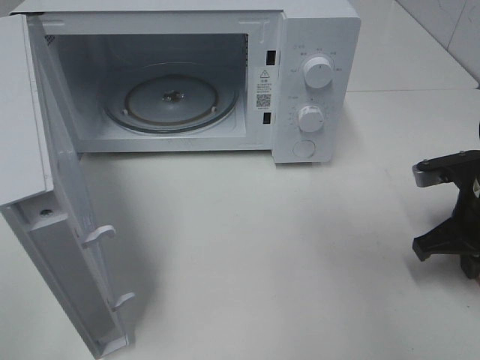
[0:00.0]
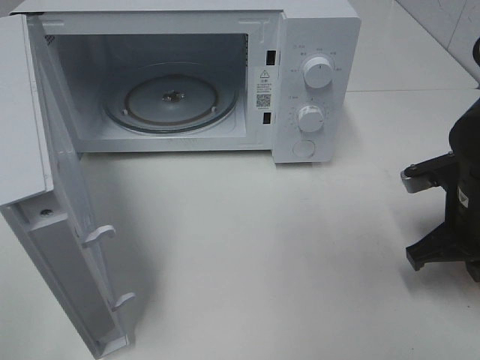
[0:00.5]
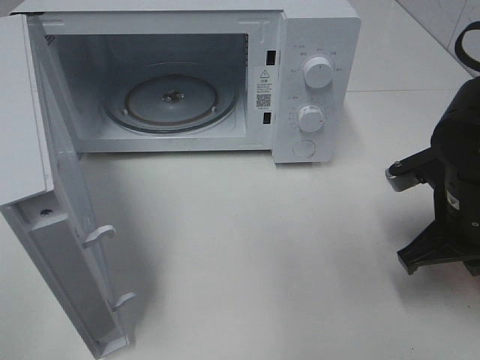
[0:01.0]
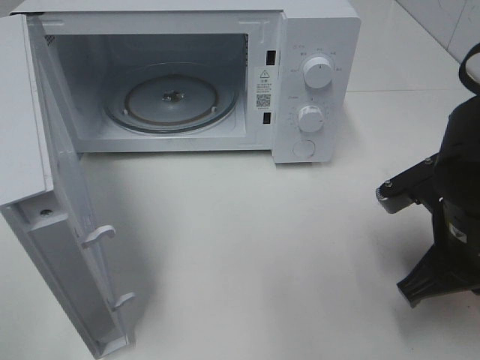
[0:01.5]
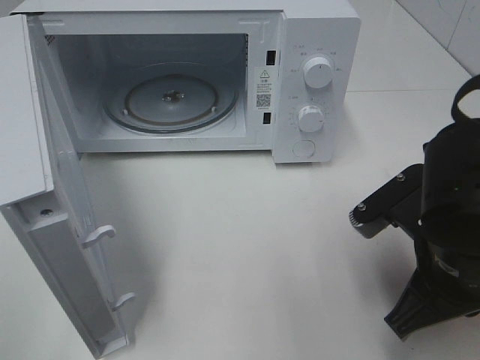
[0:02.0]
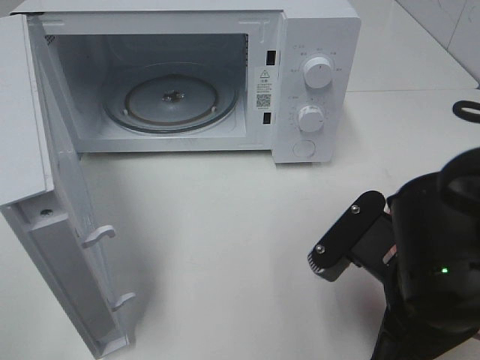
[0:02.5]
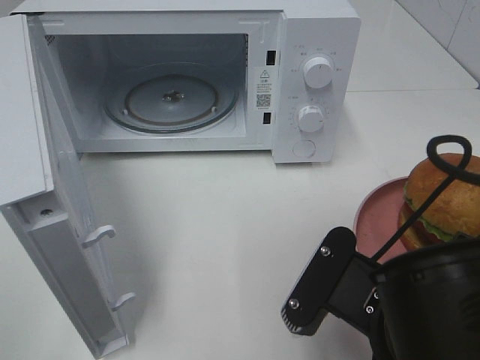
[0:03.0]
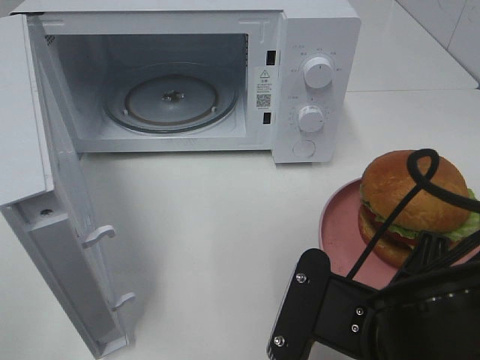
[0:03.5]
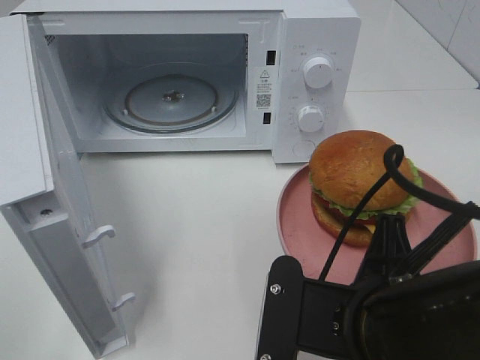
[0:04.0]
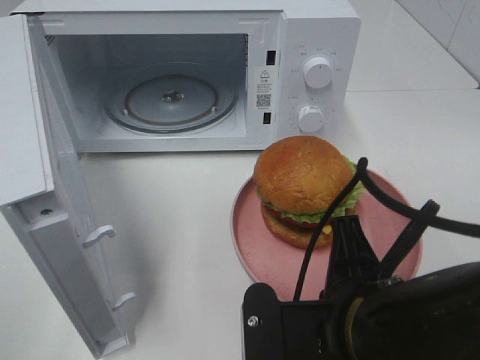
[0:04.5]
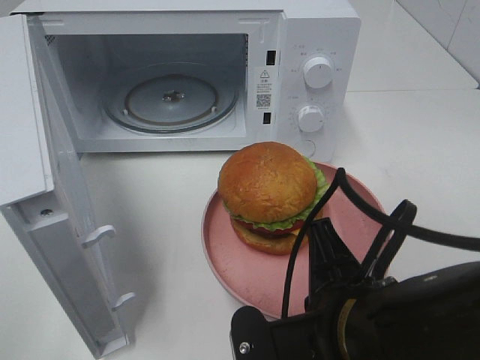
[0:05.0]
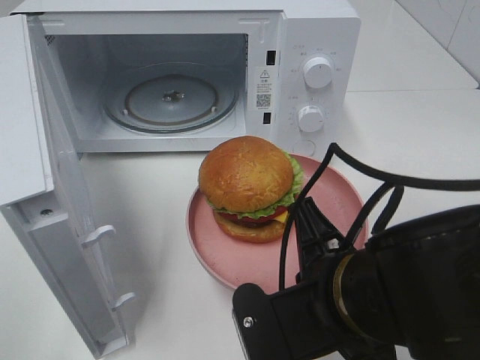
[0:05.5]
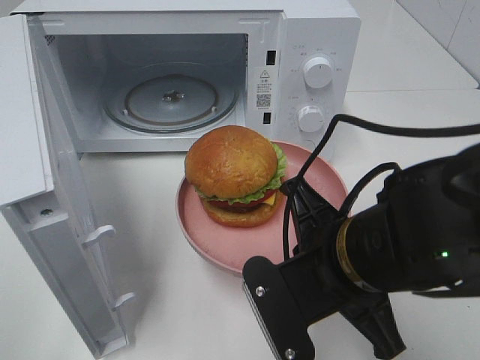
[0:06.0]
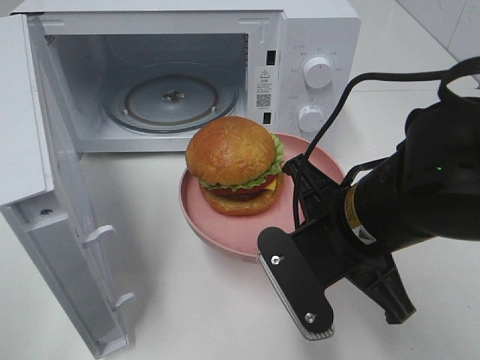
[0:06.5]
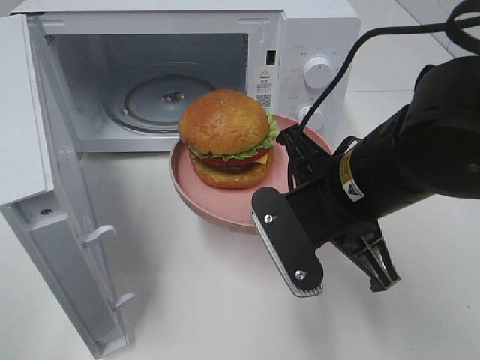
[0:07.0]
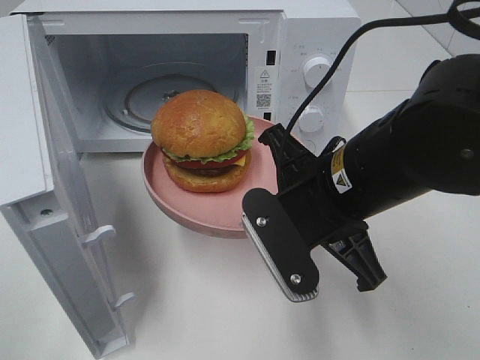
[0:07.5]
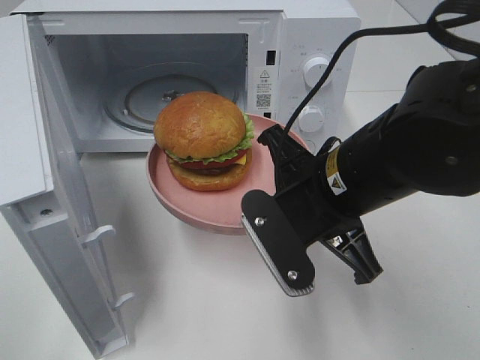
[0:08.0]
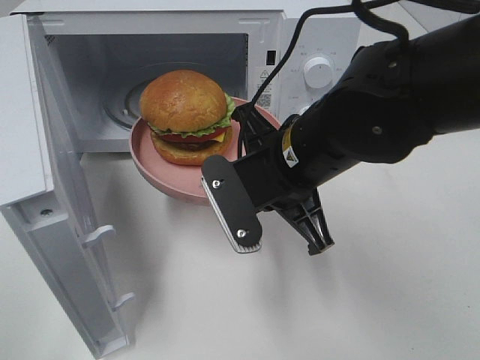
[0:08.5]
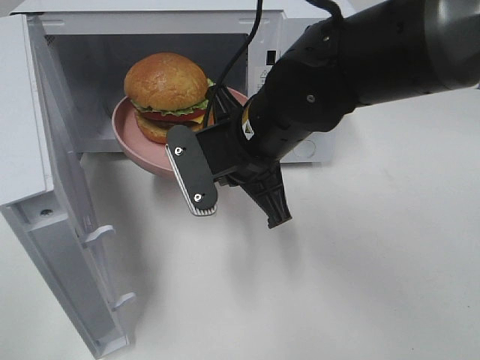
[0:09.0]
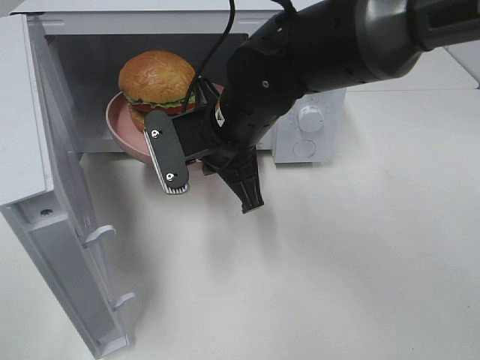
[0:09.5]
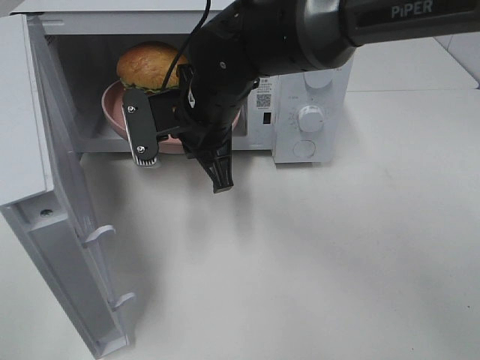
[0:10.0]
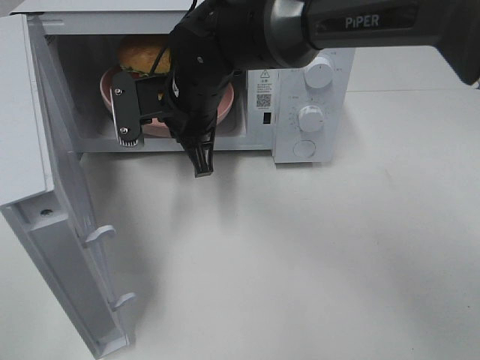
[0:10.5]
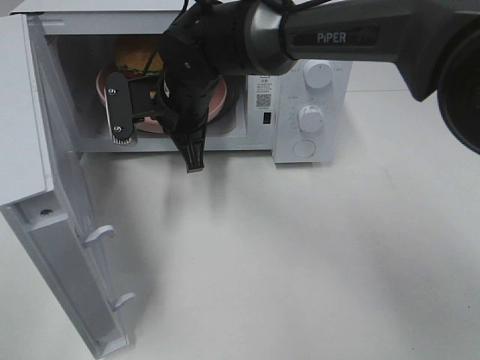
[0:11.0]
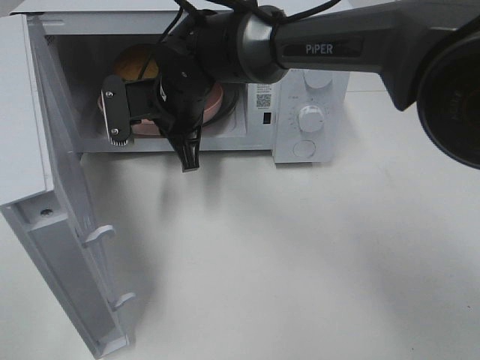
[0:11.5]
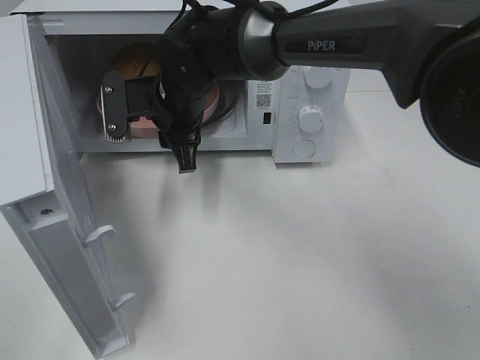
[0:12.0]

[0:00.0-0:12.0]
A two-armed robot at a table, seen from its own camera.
Task of the whole recording: Heat the burger.
Step, 0.5 to 11.5 s: Right hand: place the plate in the microwave.
0.0 to 2.0 s: The right gripper shifts some 15 cm to the left and backward.
2.0 to 4.0 s: The right gripper travels to the left and backward by some 10 cm.
4.0 to 6.0 s: The right gripper goes about 5 cm forward.
6.0 to 8.0 s: The right gripper shifts roughly 5 cm forward.
8.0 to 10.0 s: The right gripper heads forward and to the left, covering roughly 15 cm.
10.0 to 12.0 s: The right gripper shifts by some 5 cm, and opens up.

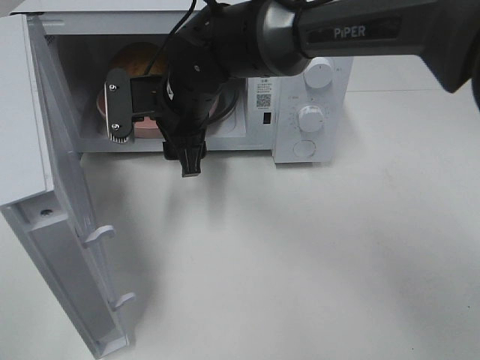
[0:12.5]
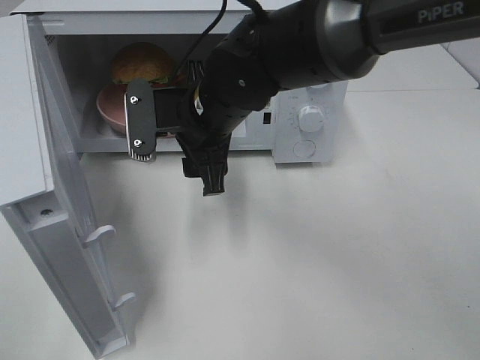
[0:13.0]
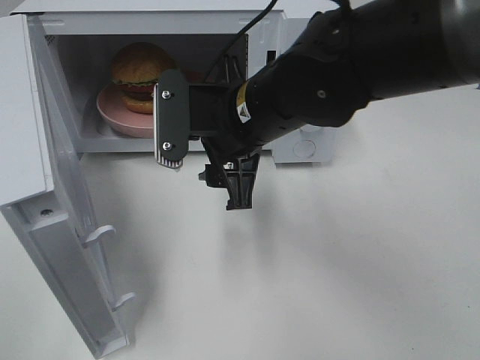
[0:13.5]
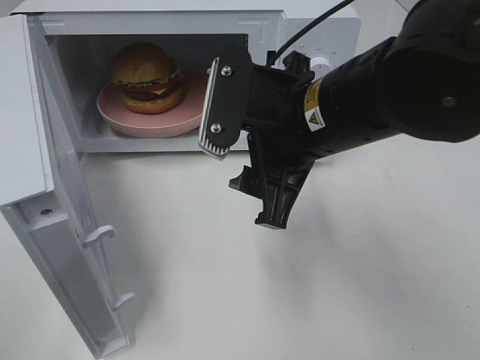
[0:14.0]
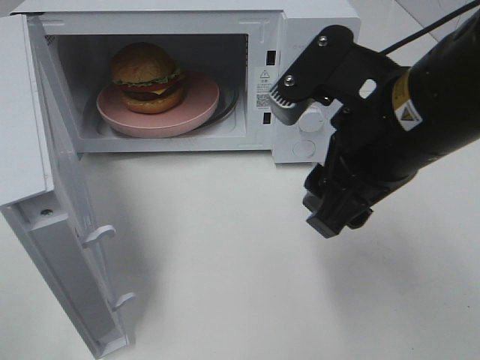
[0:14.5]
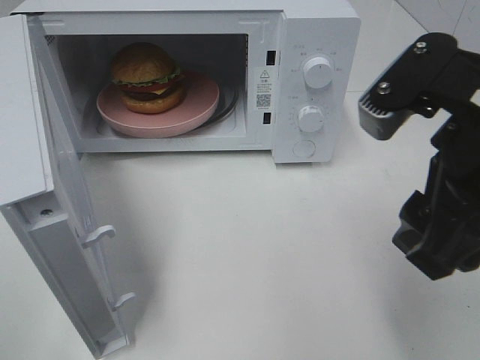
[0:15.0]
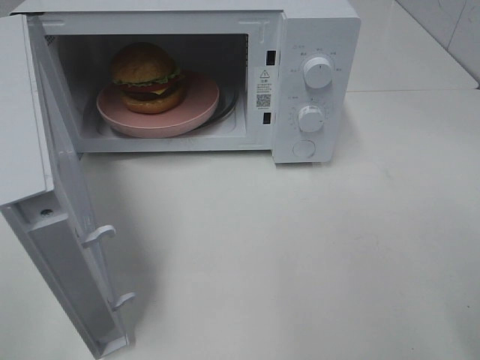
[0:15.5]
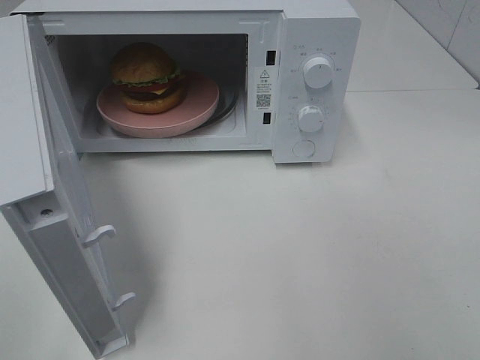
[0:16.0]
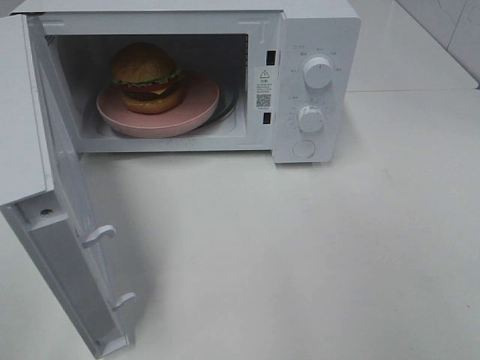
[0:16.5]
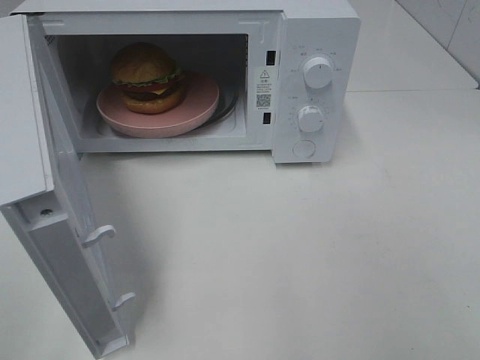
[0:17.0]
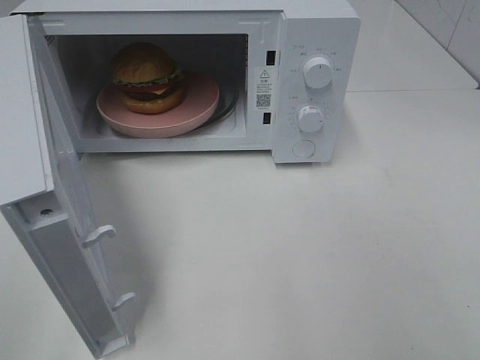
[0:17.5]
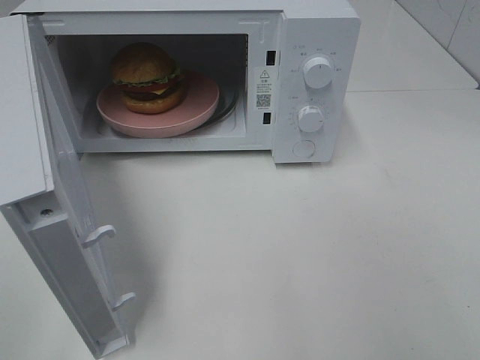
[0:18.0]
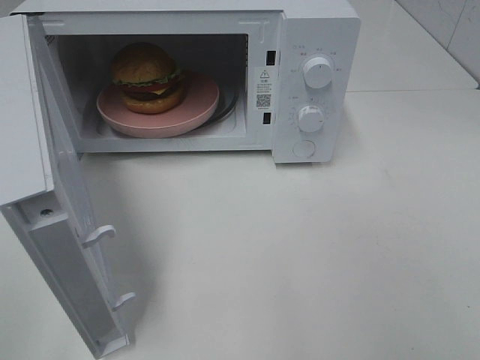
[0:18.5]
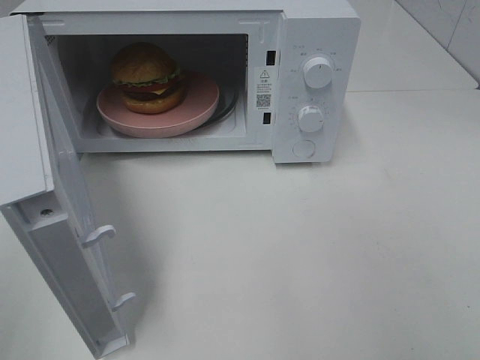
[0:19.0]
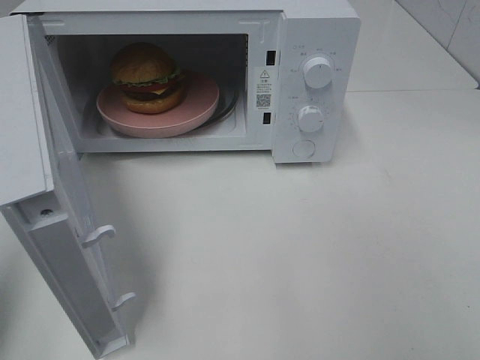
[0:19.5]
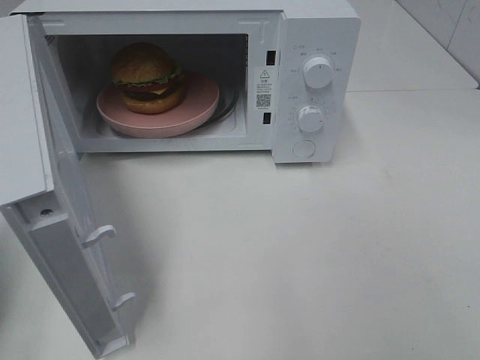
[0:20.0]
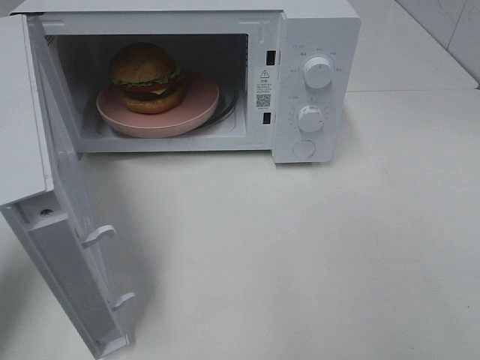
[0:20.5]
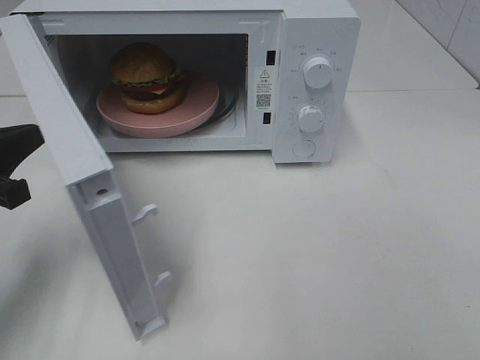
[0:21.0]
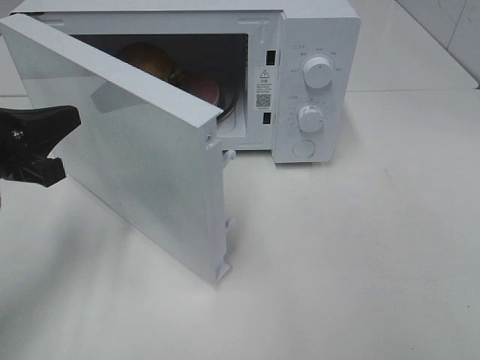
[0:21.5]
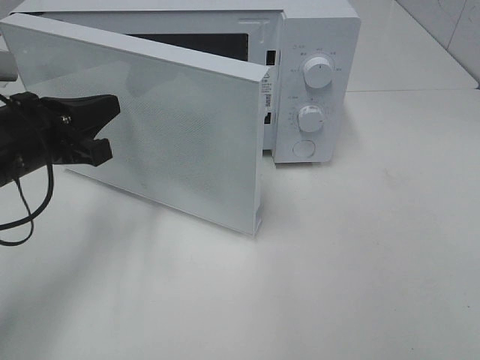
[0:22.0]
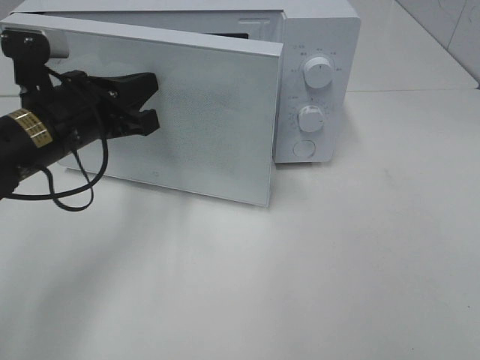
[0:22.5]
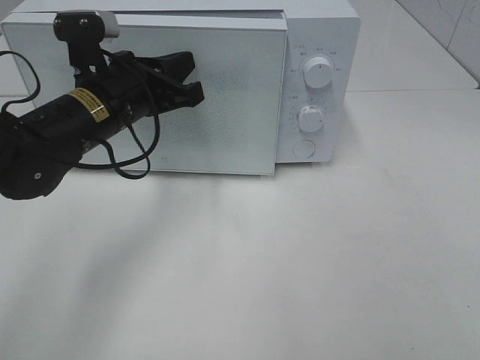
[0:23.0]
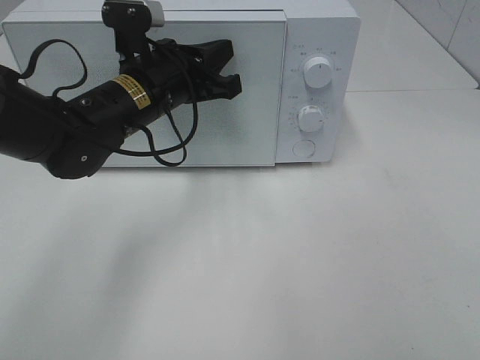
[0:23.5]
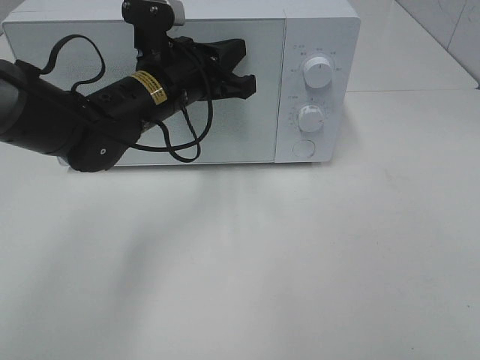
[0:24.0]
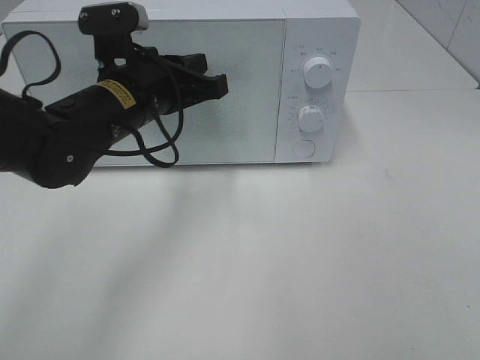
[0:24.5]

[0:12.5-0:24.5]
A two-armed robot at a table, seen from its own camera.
Task of the whole recording: Heat the burger.
Step, 12.5 to 24.5 s: Left hand: close the microwave door.
12.5 to 14.5 s: The right gripper shifts roughly 25 cm to the right, backward and upward.
14.5 to 16.5 s: The right gripper travels backward and to the right by some 25 cm.
18.5 to 20.5 s: The left gripper moves forward and downward, about 20 cm, and closes.
20.5 to 22.5 s: The left gripper heads to the right and forward, covering about 15 cm.
22.5 to 24.5 s: The left gripper travels to the right by approximately 5 cm.

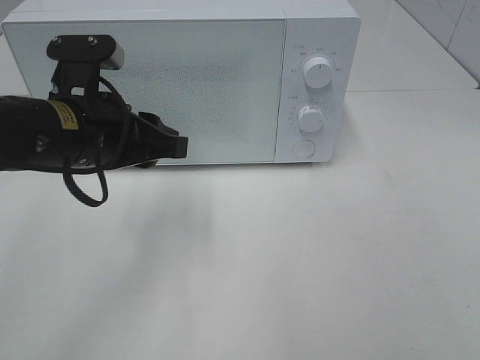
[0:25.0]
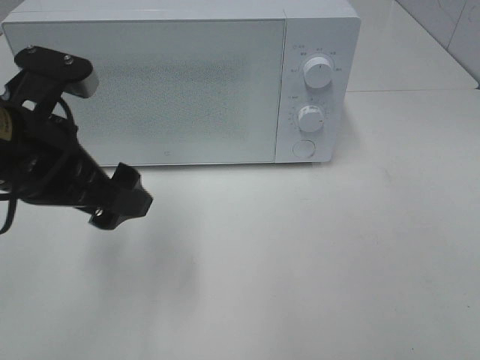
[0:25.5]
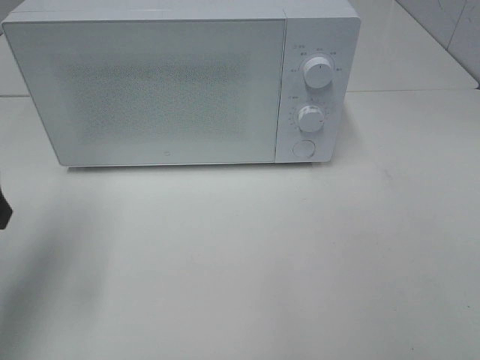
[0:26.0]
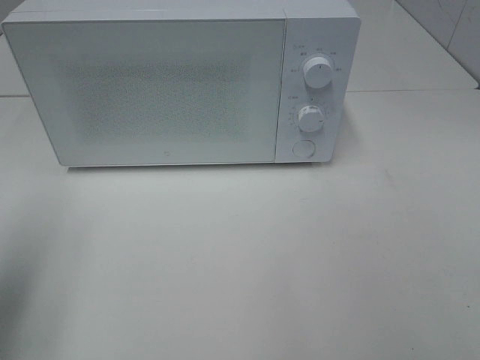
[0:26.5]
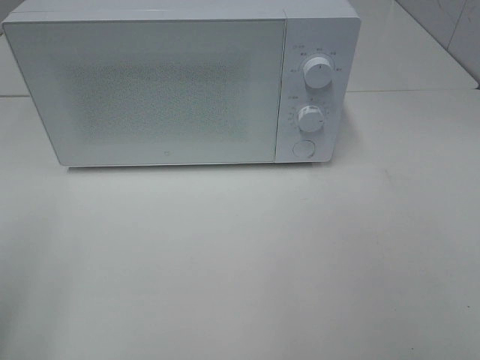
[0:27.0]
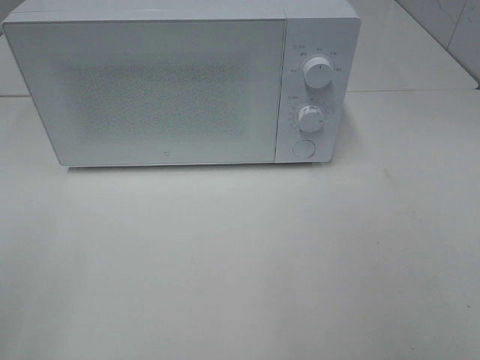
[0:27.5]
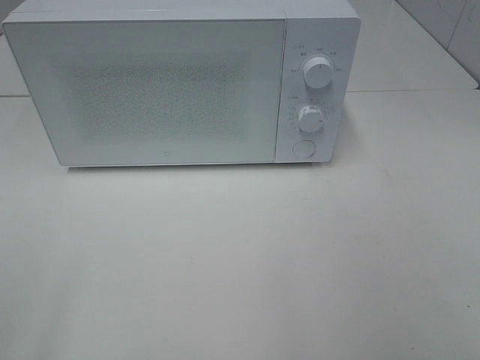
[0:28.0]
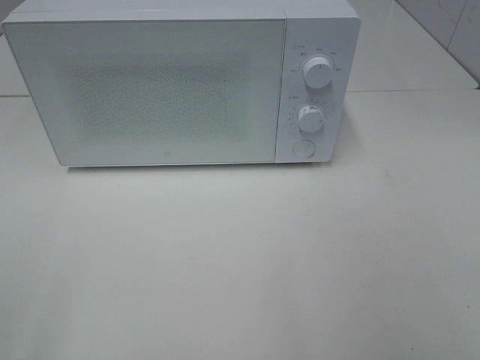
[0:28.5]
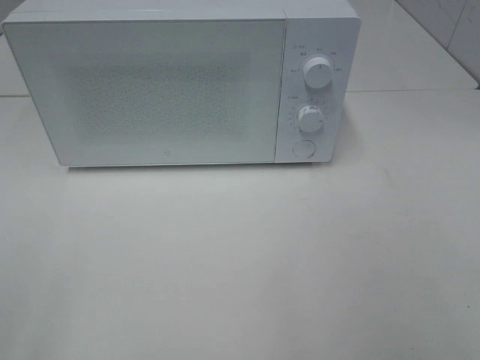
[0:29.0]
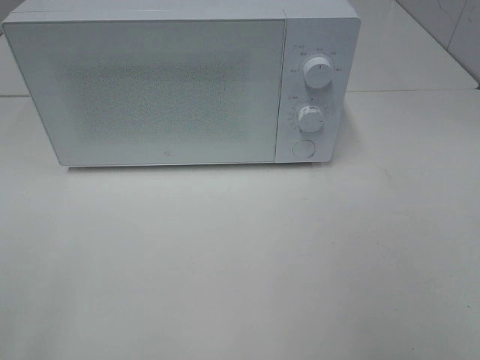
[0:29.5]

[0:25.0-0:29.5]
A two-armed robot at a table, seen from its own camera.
Task of the whole recording: Heat the burger.
25.0 to 27.0 s: The left gripper shifts approximately 25 cm to the left and backward, and opens its fingers.
